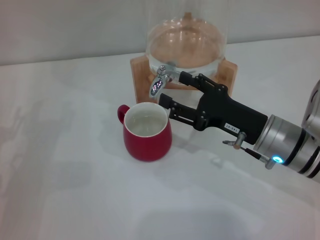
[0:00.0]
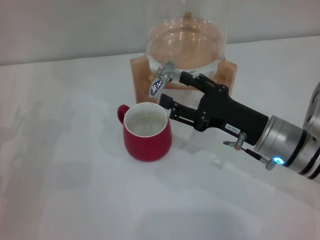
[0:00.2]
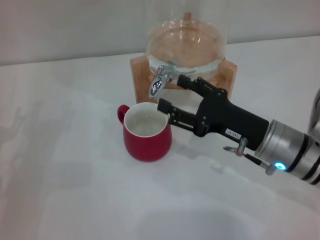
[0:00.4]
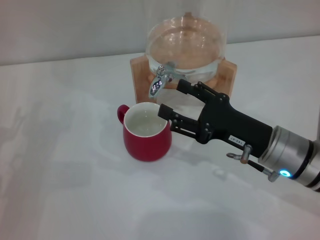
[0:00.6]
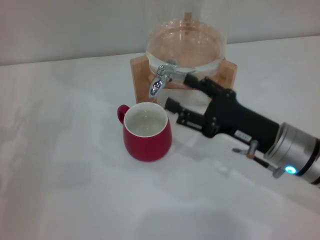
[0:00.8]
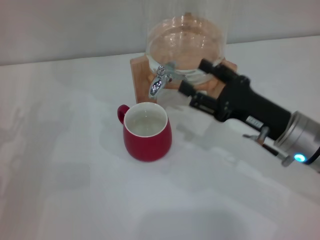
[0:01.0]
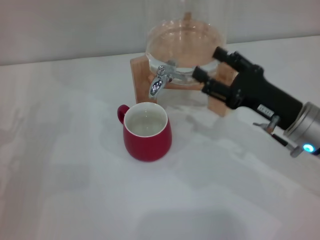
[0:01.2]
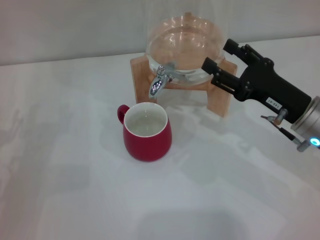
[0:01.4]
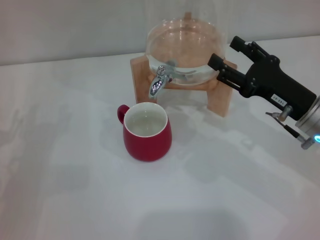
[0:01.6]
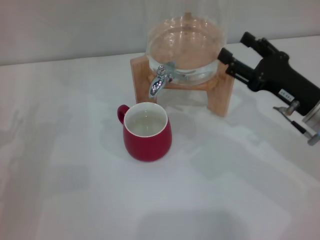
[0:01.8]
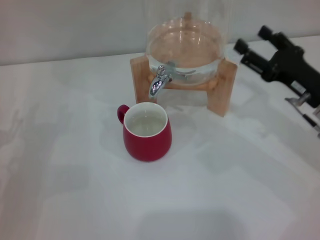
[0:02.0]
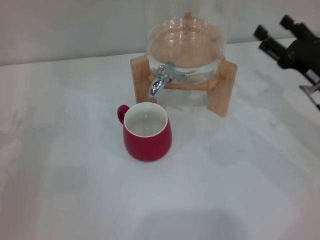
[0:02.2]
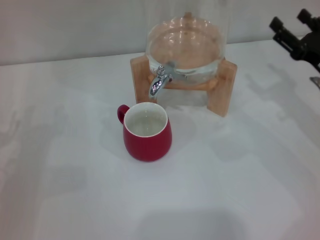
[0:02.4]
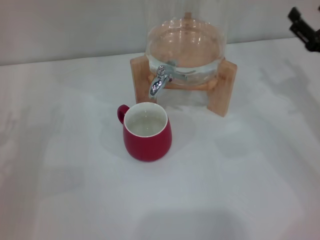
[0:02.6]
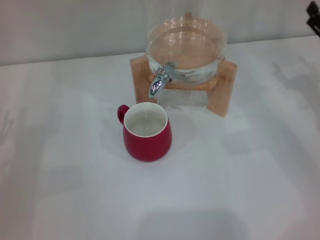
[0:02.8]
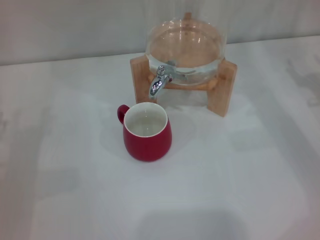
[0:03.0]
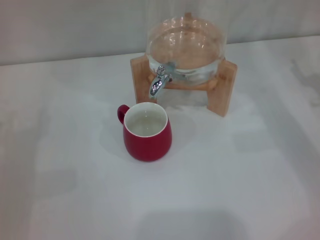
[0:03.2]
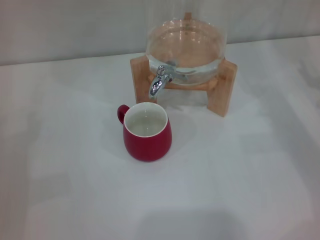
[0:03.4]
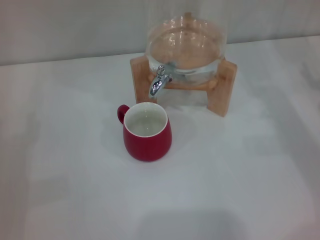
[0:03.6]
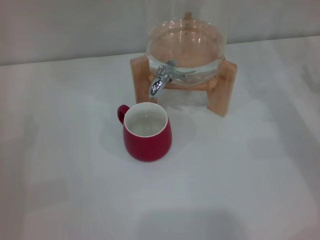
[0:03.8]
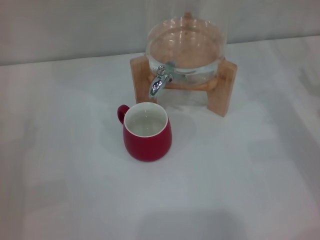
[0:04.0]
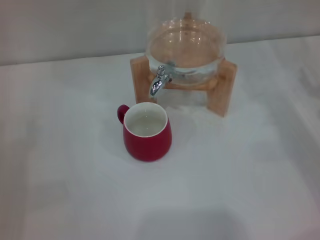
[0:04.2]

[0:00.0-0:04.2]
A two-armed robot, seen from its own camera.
Task of the whole recording: the left gripper pick up the red cup and place it horizontally under the faucet, the right gripper turn on the faucet to fill the cup, and then turn off the faucet.
0:00.0 to 0:01.4: The right gripper shifts by approximately 5 cm.
0:01.4 to 0:02.8: The right gripper is displaced to the right by approximately 10 cm.
0:02.8 to 0:04.2: The grippers move only a little.
